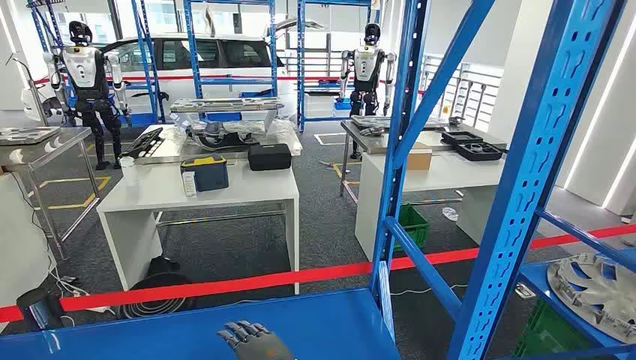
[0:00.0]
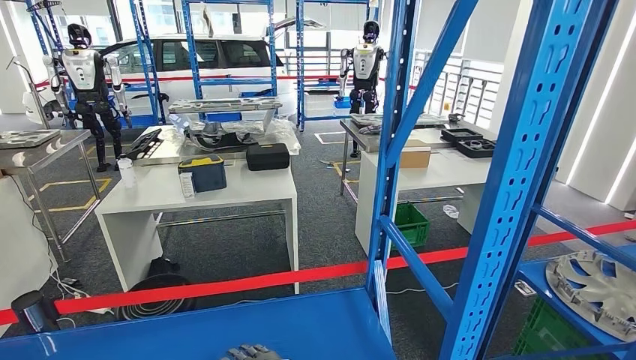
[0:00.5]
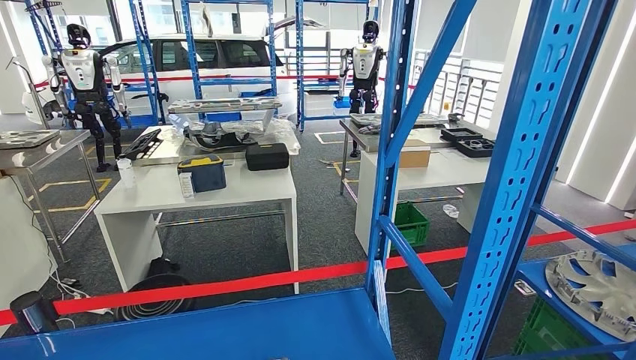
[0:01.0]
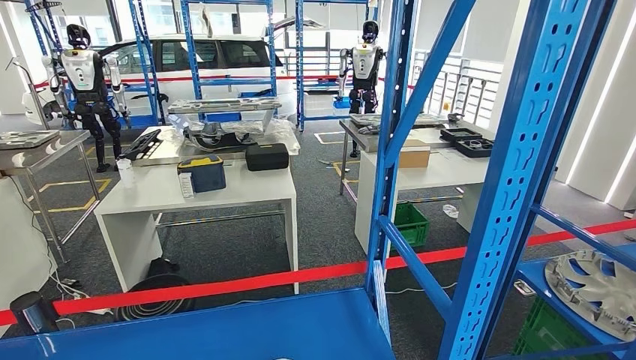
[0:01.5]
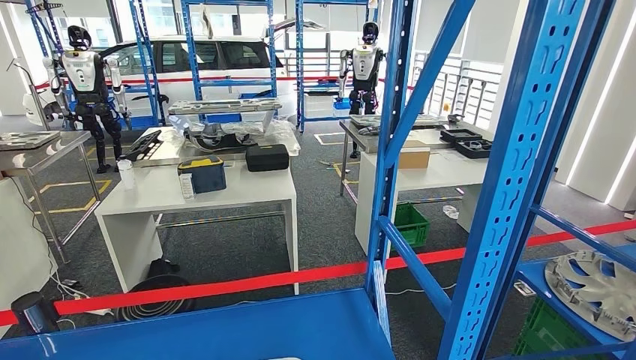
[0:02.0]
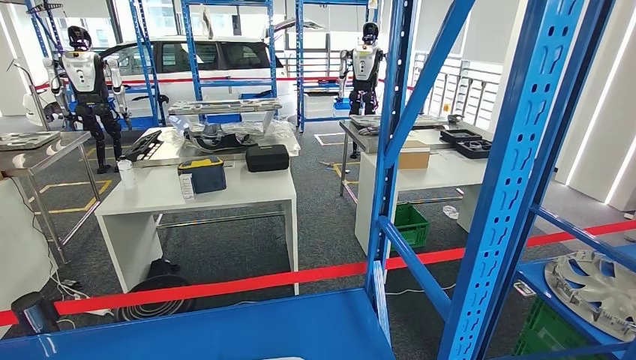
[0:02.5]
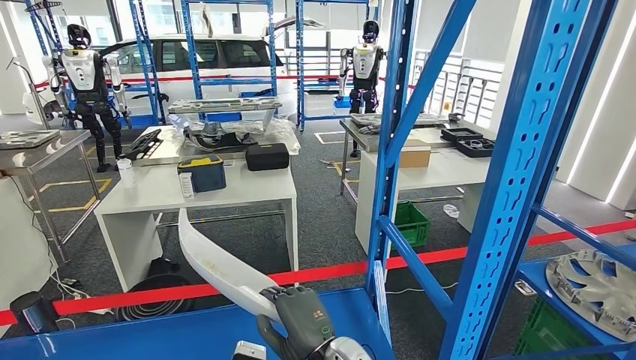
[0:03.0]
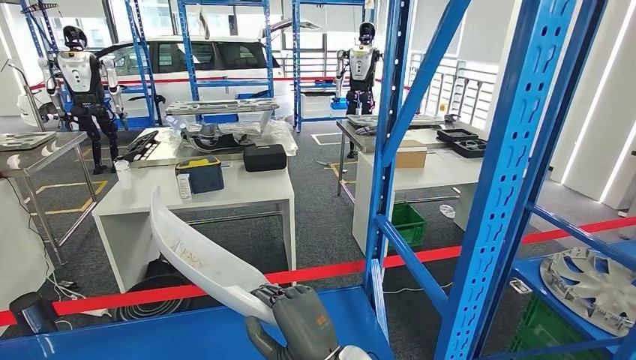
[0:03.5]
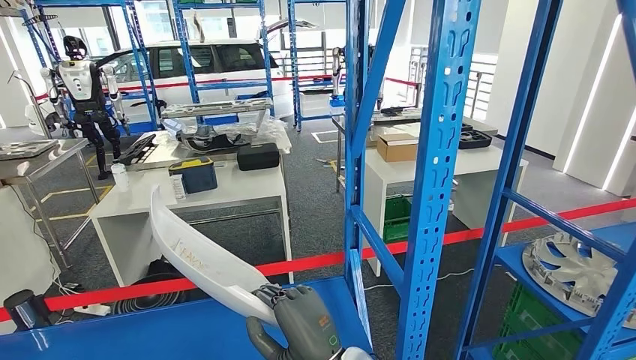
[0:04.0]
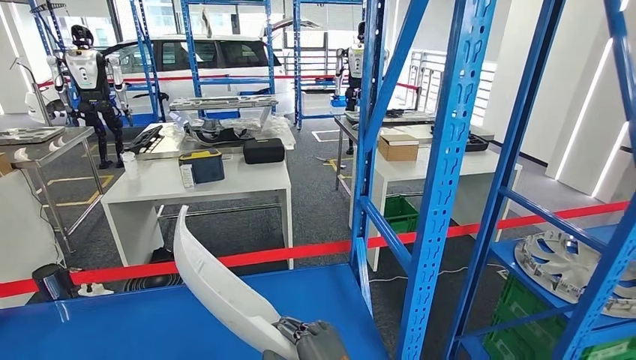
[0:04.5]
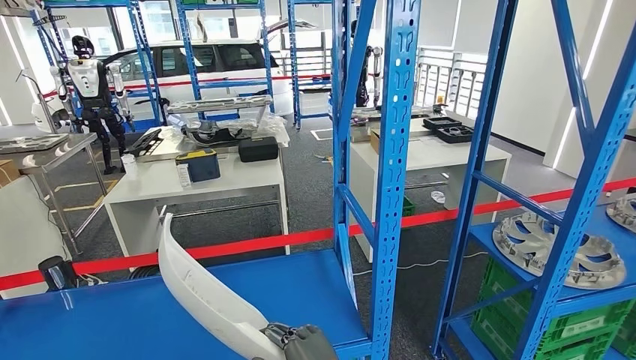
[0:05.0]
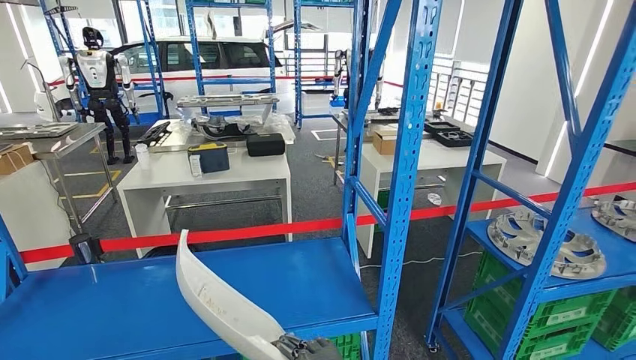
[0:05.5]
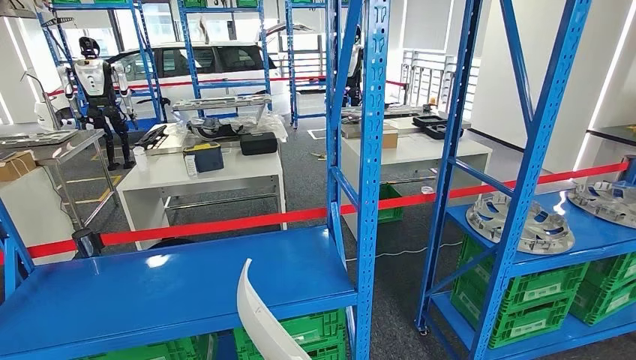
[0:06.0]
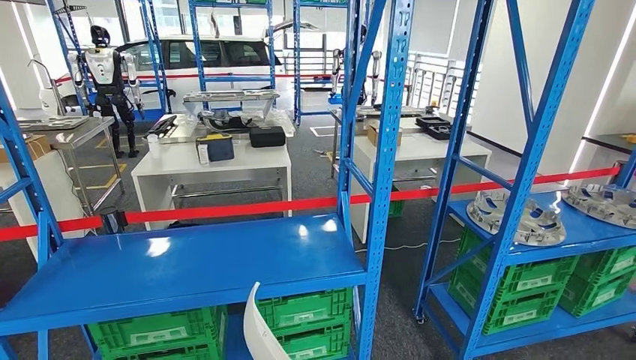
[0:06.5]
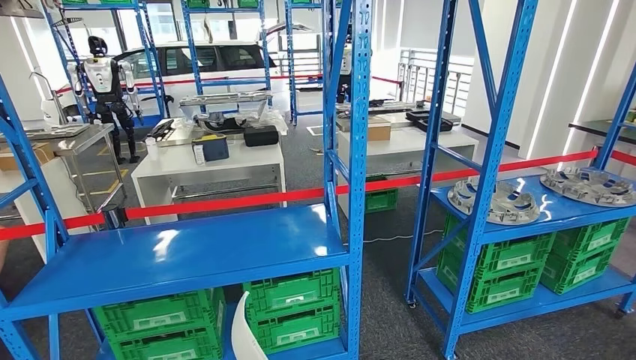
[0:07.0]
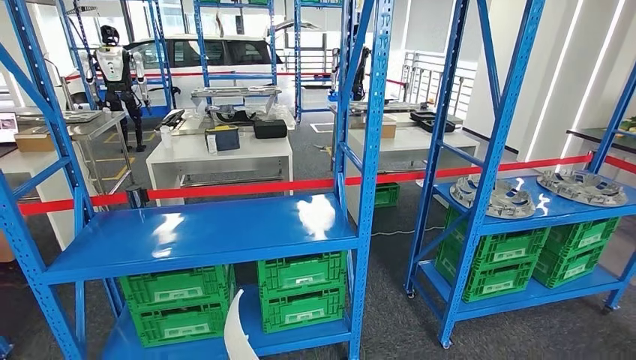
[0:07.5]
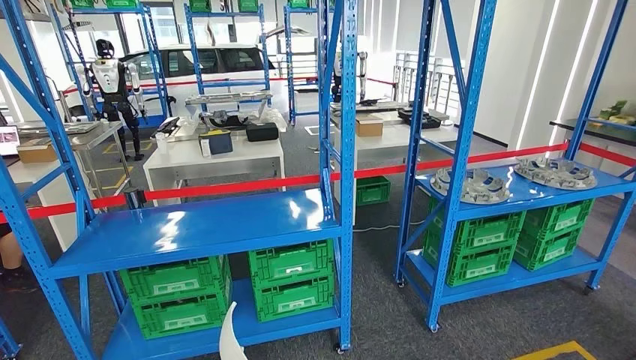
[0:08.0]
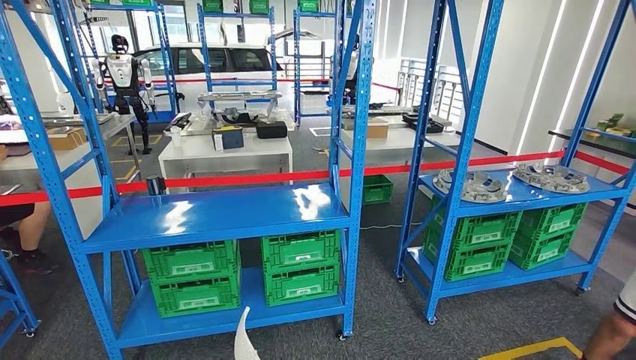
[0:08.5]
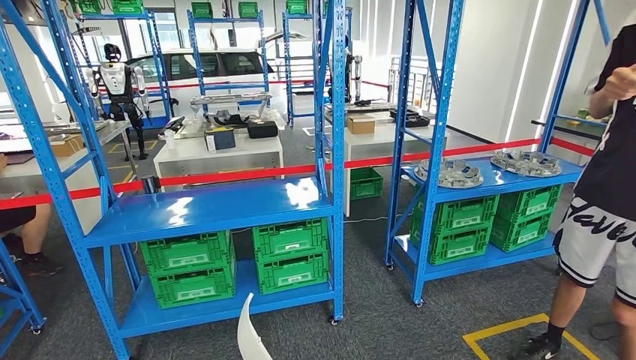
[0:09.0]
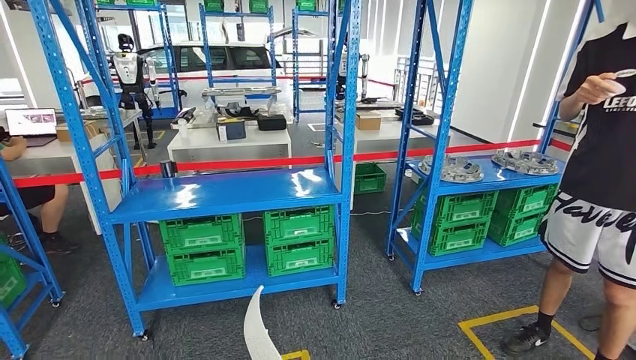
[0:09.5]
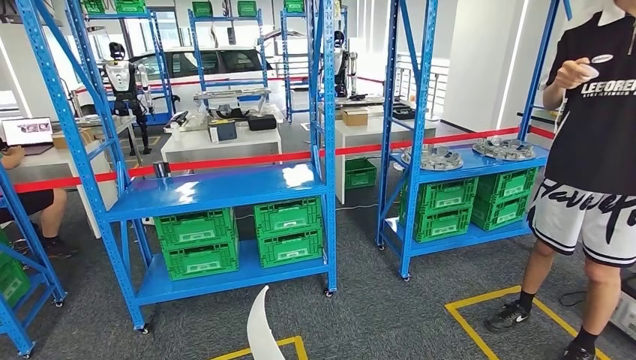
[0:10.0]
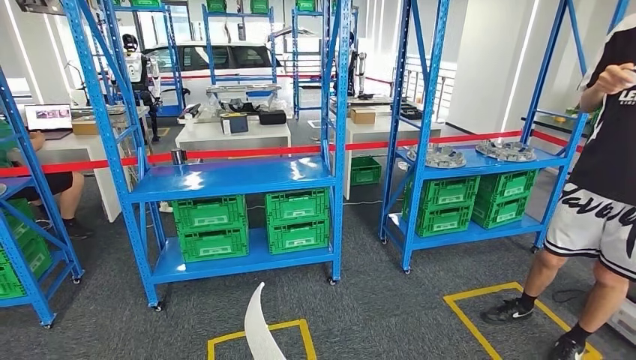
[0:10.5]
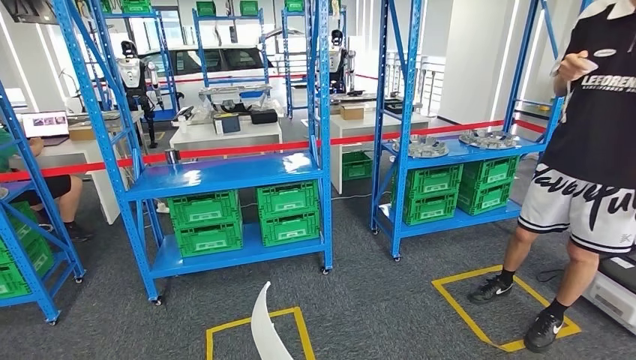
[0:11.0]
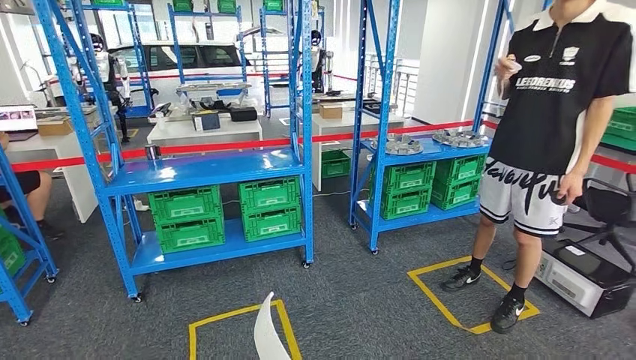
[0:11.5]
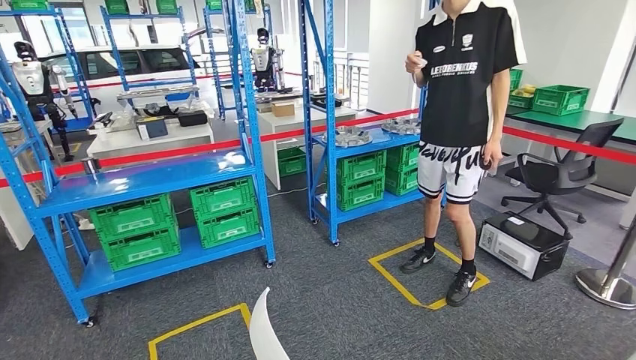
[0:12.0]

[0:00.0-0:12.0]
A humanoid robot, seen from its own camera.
Step, 0:00.0 to 0:04.5: Pick up the small parts from the shelf.

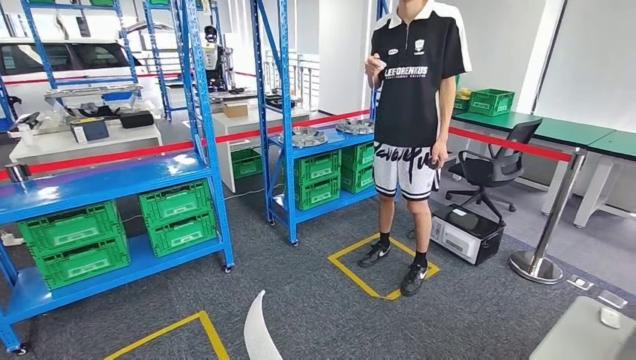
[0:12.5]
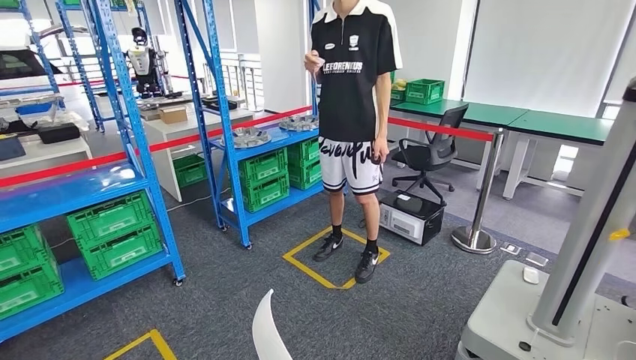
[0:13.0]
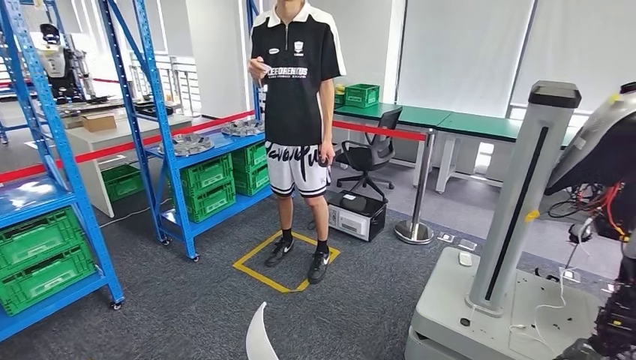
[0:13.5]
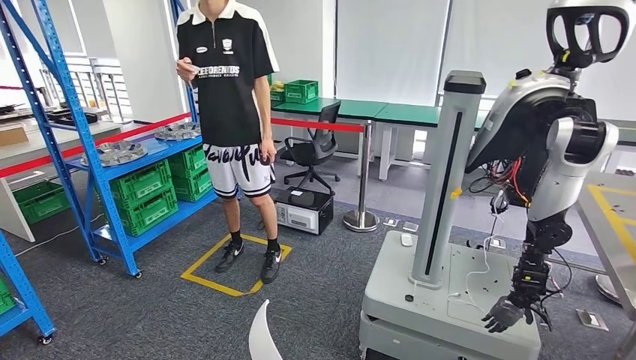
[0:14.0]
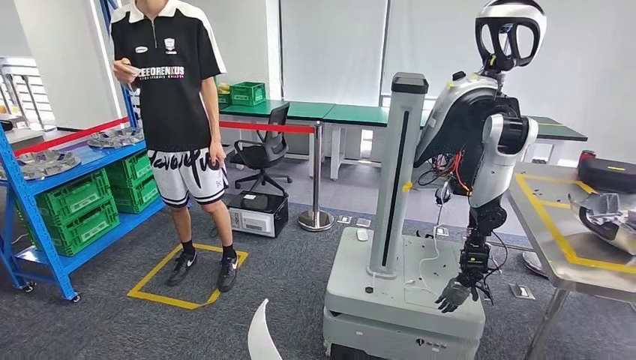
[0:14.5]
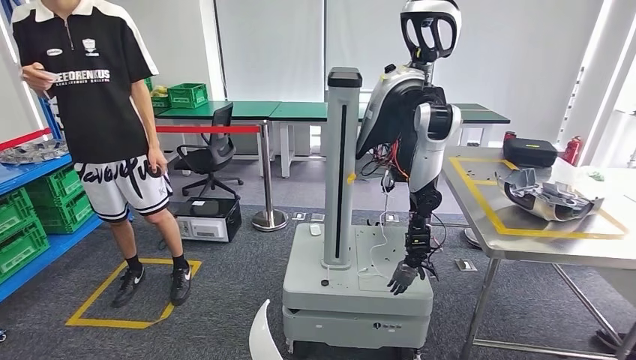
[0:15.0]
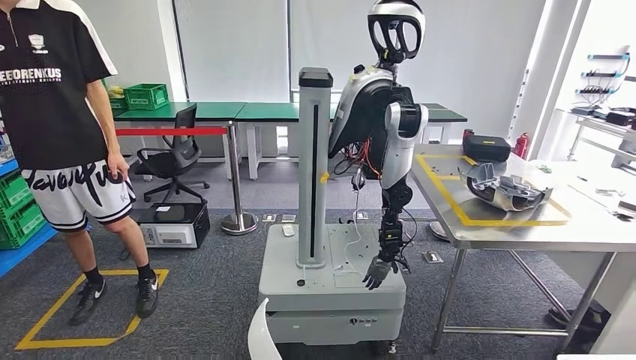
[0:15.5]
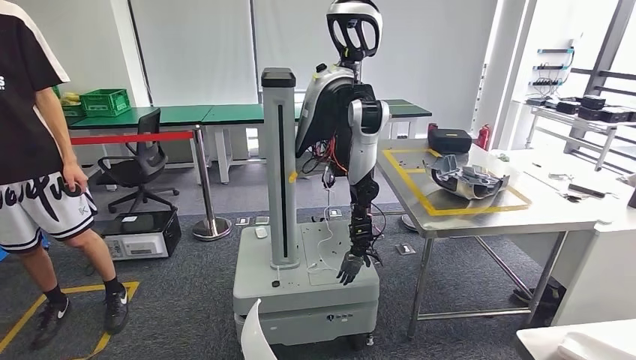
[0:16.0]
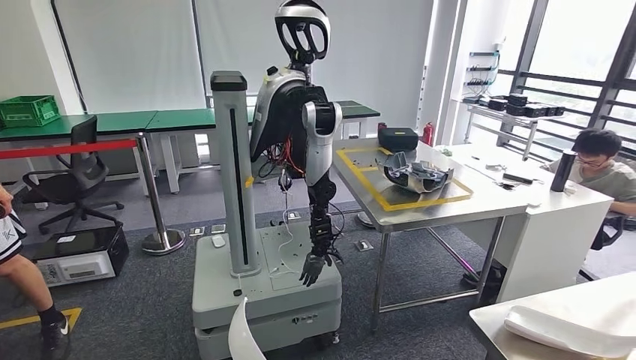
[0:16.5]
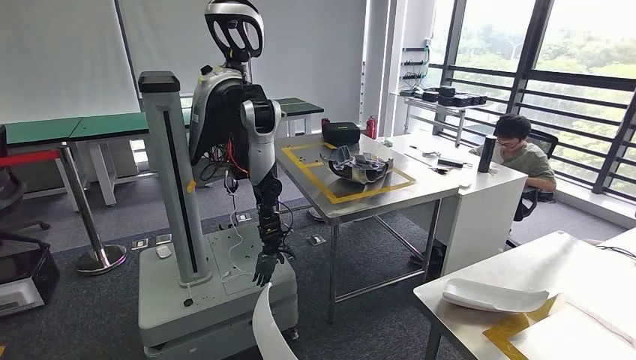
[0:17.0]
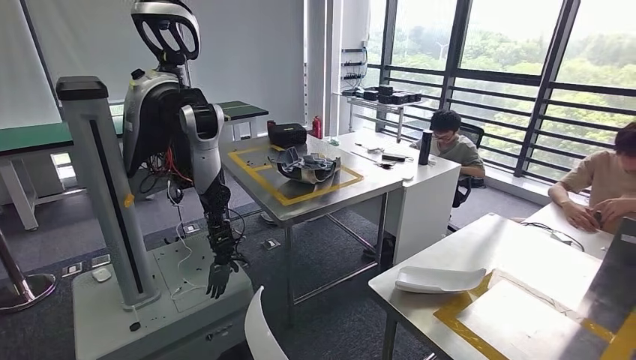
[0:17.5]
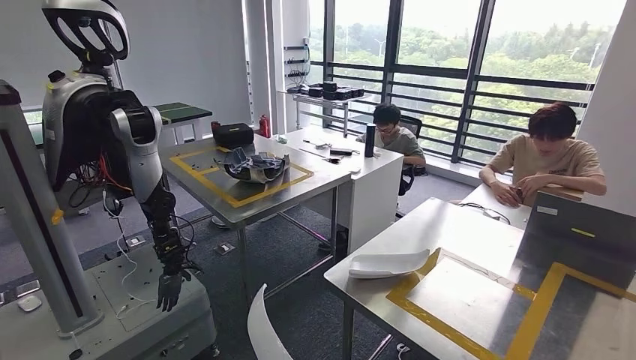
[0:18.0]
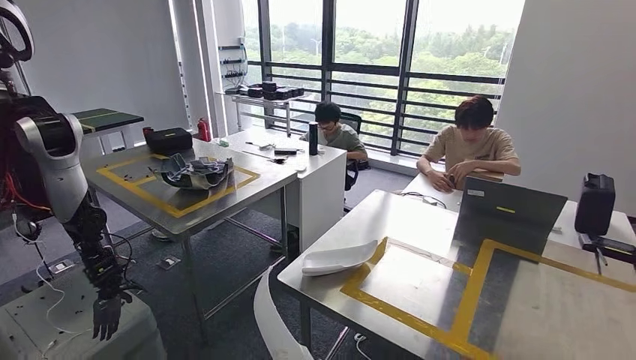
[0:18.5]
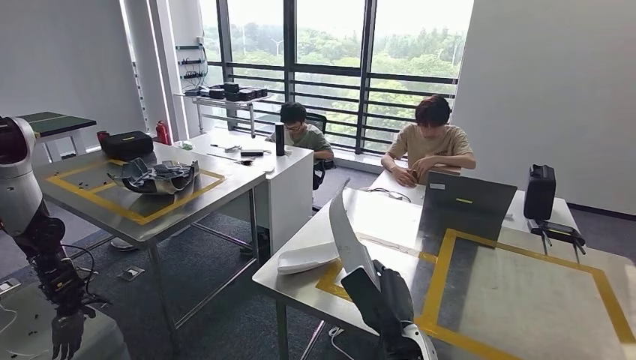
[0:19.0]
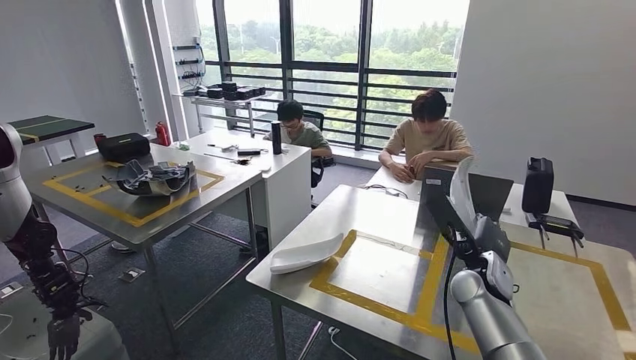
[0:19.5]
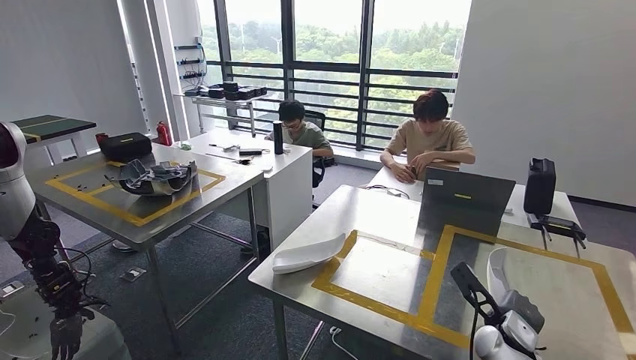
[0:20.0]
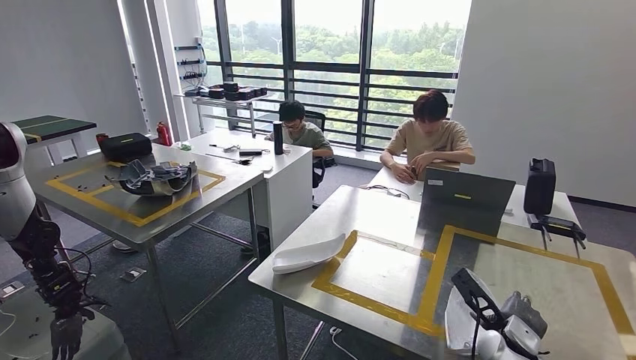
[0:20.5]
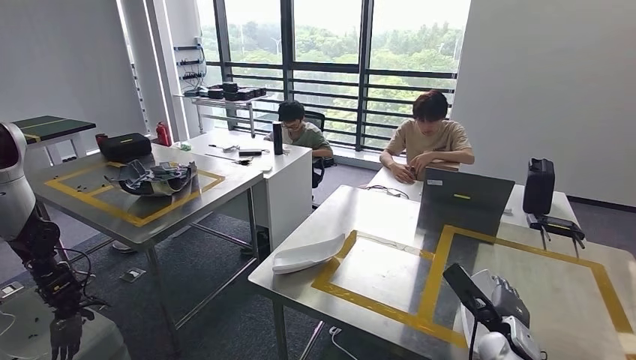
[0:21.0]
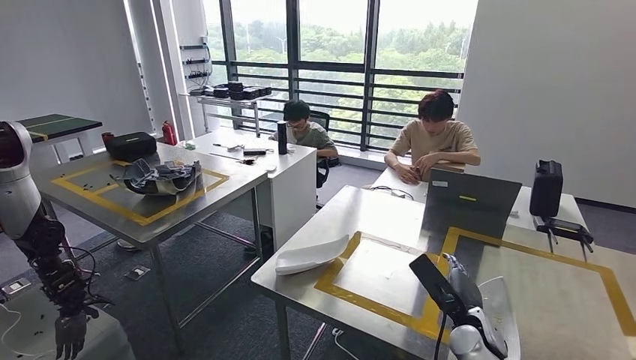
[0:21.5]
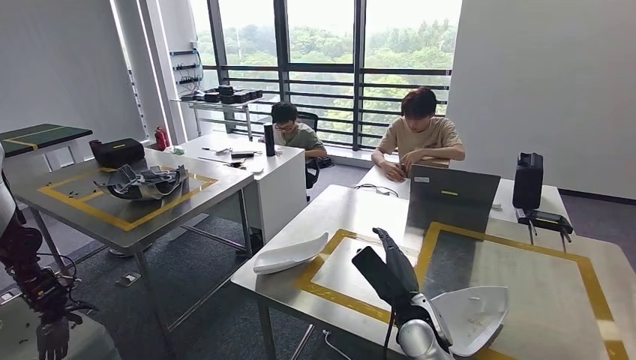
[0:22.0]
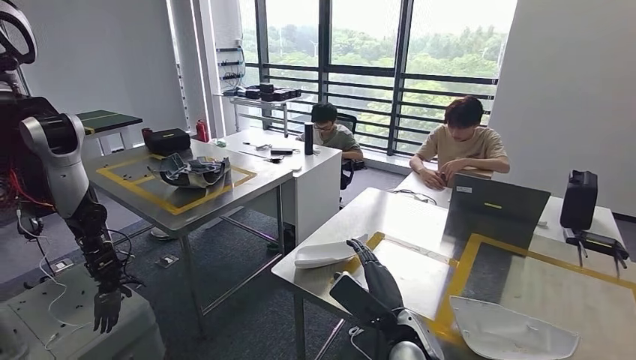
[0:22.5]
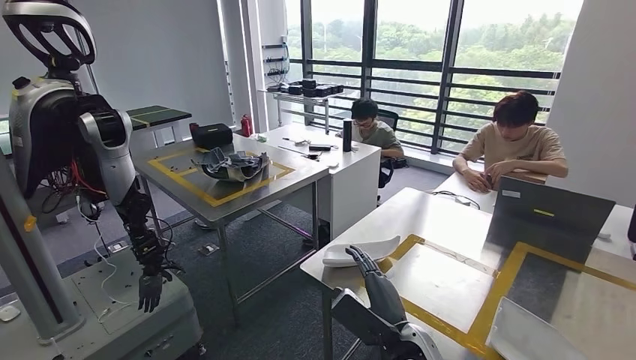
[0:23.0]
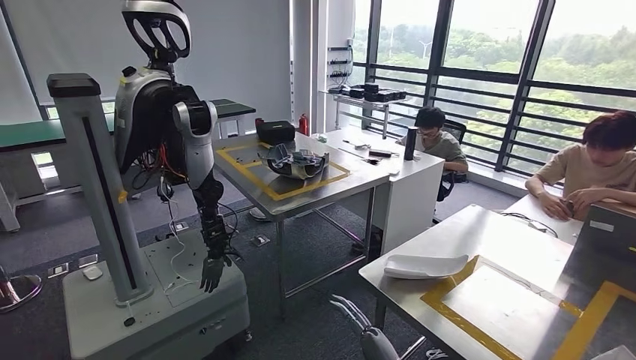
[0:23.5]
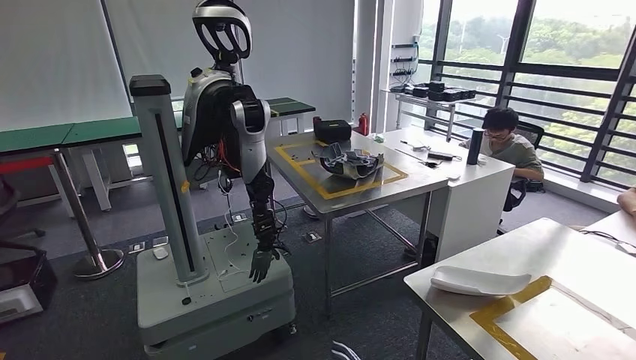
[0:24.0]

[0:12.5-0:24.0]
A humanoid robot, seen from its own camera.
Step, 0:12.5 to 0:19.5: Move the small parts to the workbench.
